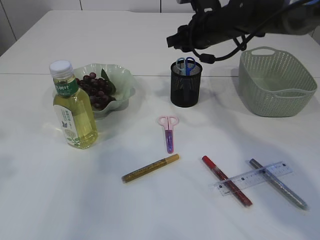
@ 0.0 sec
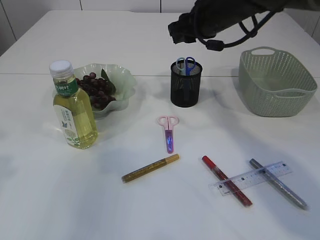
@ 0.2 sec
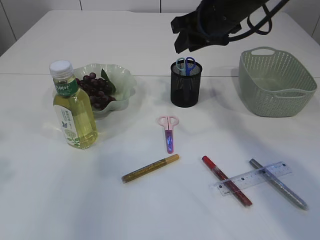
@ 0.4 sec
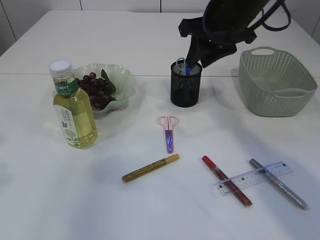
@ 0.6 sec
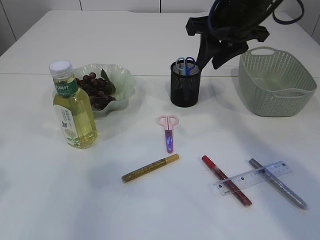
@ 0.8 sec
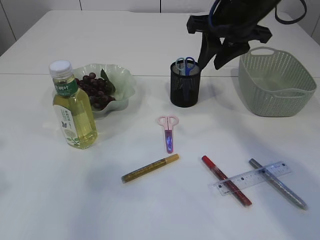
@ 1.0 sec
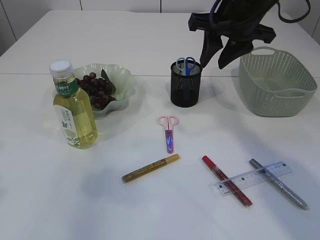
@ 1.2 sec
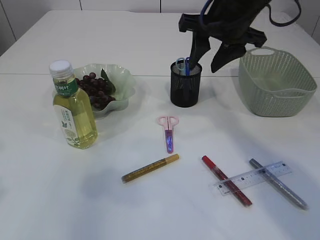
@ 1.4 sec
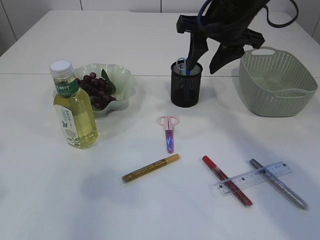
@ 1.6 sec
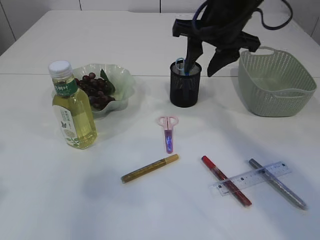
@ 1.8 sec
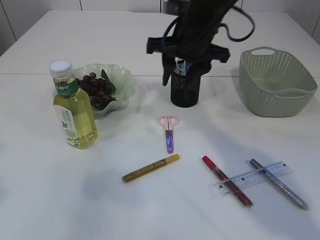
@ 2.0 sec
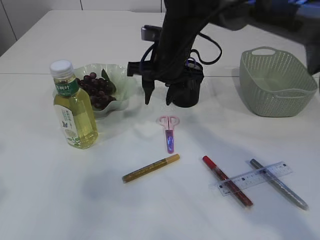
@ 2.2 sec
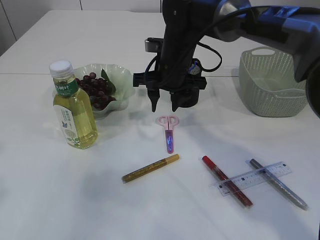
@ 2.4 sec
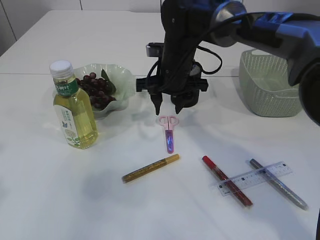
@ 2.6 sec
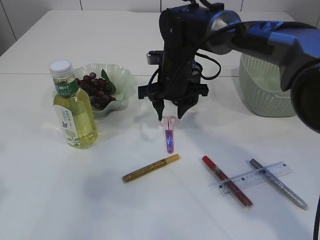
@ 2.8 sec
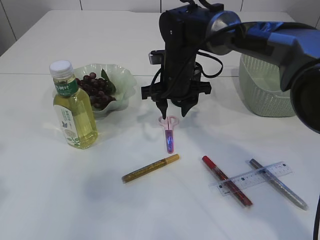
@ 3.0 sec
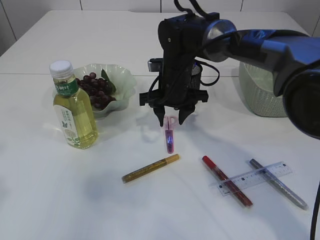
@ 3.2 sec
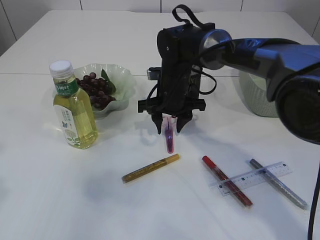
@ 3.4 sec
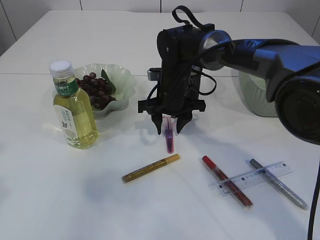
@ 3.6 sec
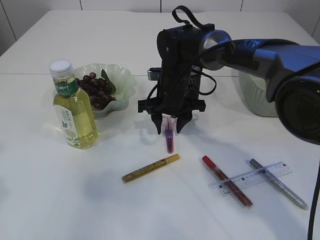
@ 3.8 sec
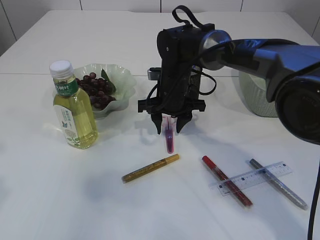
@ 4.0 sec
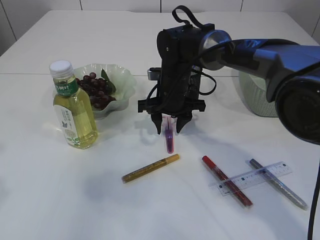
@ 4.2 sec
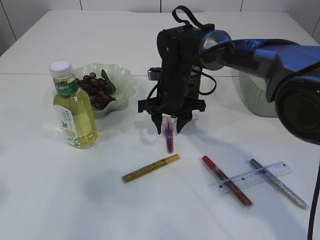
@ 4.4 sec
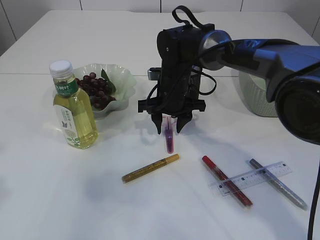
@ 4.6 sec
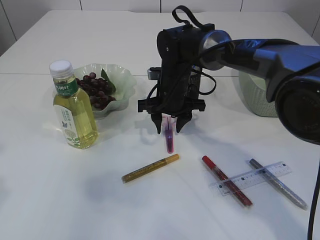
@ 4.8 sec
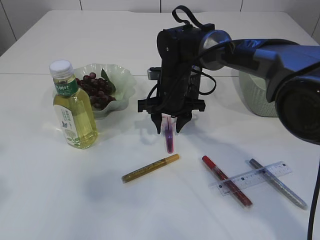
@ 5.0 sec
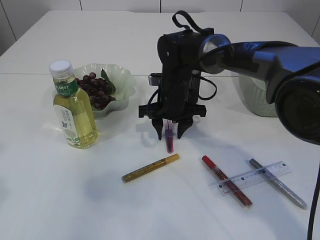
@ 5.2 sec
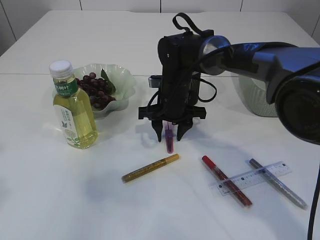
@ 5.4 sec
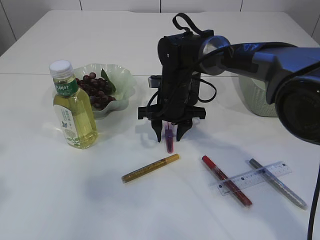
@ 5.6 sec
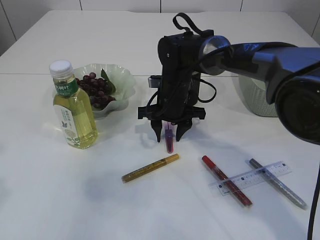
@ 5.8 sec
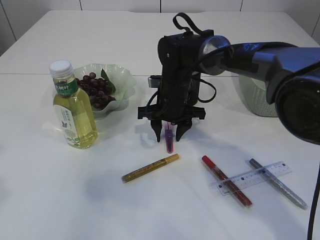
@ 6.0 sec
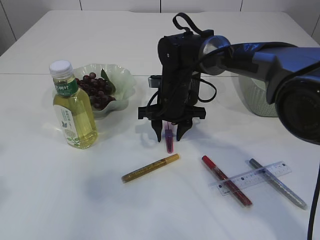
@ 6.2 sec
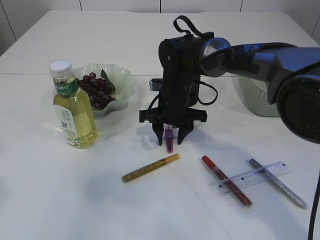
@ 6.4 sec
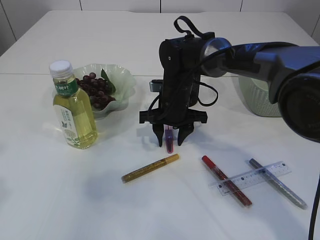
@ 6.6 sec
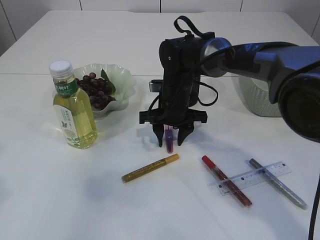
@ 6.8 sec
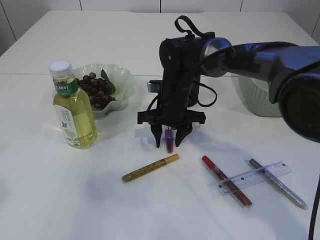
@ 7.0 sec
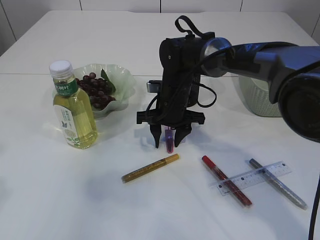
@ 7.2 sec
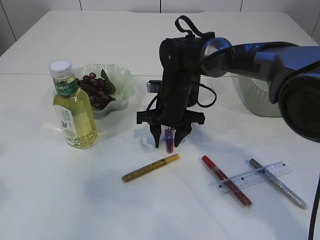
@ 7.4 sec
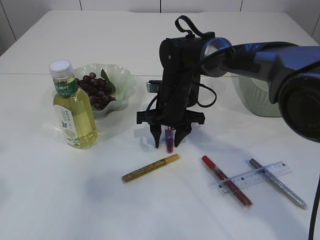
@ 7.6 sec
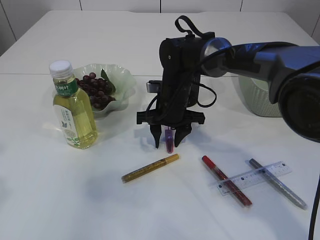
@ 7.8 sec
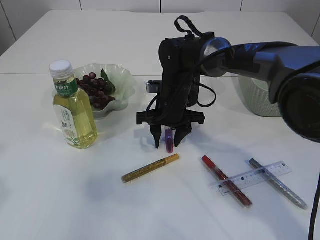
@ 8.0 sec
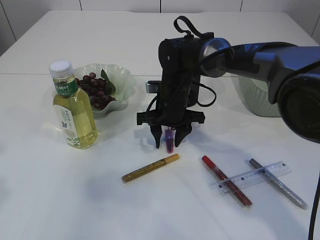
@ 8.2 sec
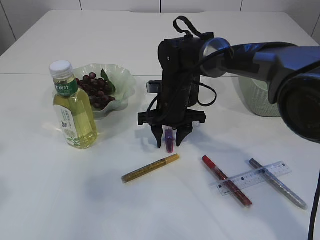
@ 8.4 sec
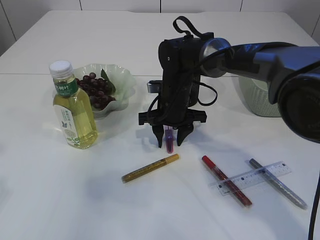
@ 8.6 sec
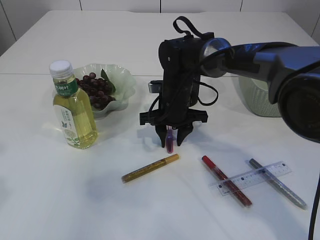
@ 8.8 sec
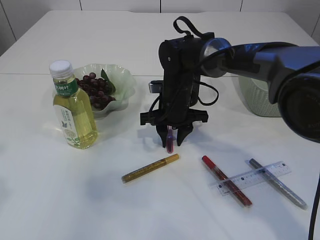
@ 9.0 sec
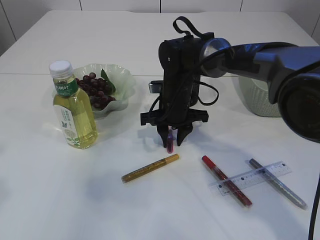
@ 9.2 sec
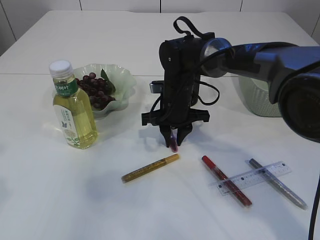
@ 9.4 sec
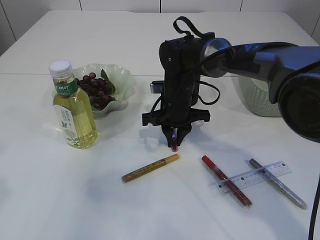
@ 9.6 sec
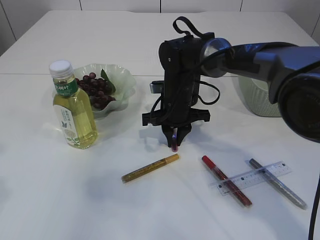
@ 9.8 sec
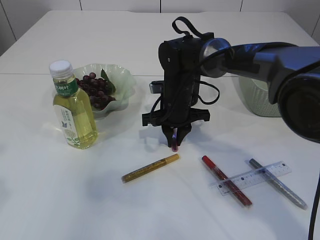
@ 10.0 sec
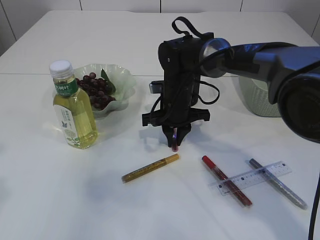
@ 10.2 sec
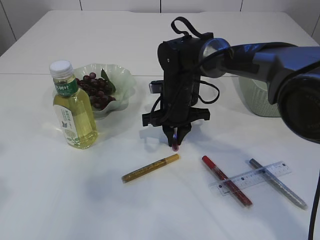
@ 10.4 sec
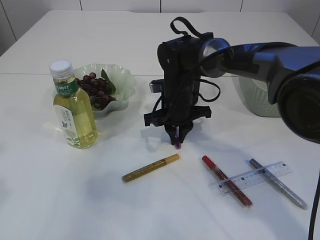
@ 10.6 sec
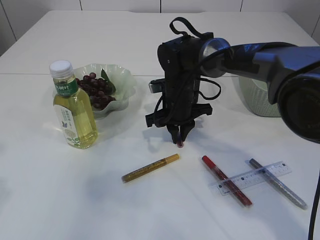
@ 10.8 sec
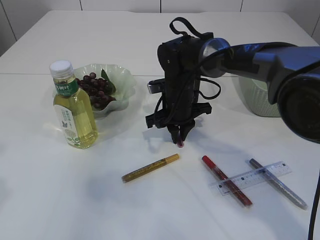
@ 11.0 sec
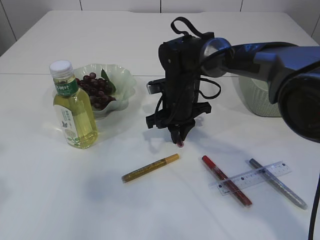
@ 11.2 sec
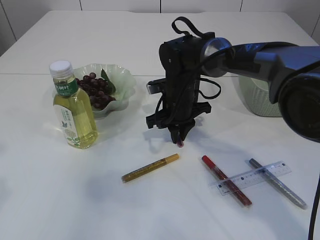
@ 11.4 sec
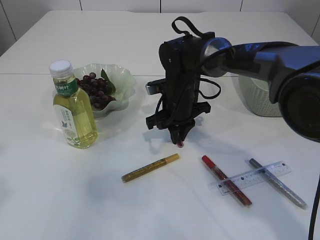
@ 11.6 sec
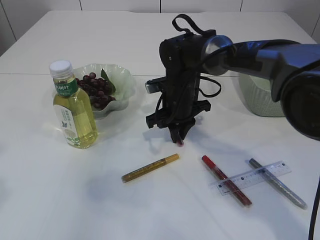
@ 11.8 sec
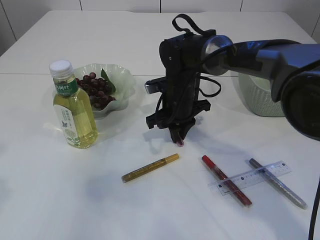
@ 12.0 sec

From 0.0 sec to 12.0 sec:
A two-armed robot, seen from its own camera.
From 0.0 sec to 1.6 sec: The right gripper moves backward and upward, roughly 10 cm.
From 1.6 sec to 3.0 sec: The right gripper moves downward and to the left, about 15 cm.
From 3.0 sec to 4.4 sec: The grippers make only small movements.
From 4.4 sec to 6.0 sec: Both grippers stay about where they are.
From 6.0 sec to 9.0 sec: Neither gripper changes place.
From 9.0 sec to 10.4 sec: The right gripper closes up.
From 10.4 sec to 12.0 sec: The grippers make only small movements.

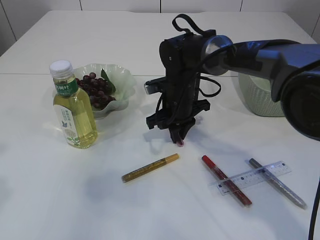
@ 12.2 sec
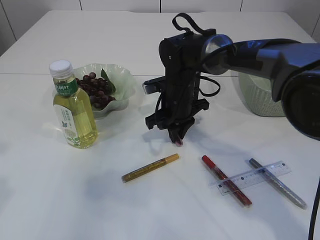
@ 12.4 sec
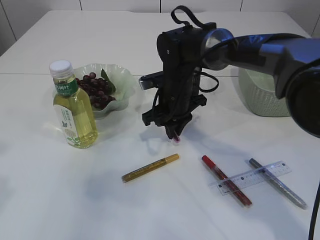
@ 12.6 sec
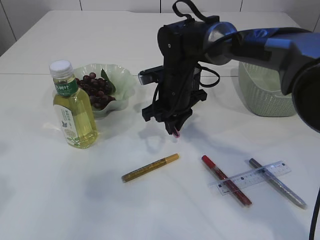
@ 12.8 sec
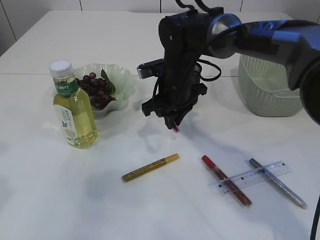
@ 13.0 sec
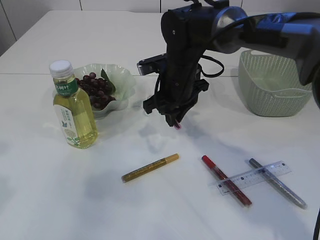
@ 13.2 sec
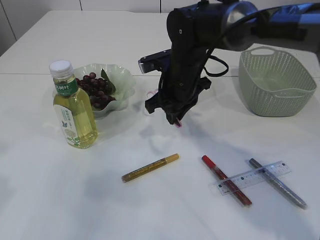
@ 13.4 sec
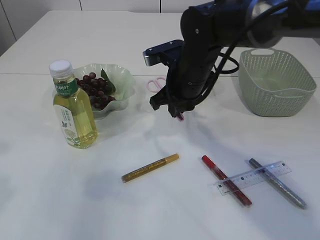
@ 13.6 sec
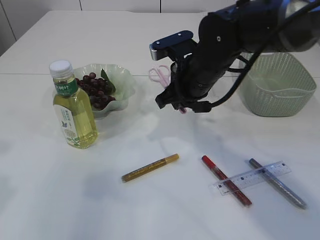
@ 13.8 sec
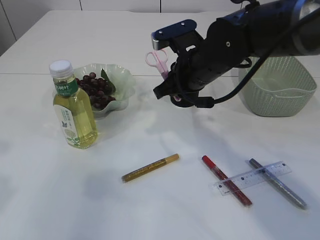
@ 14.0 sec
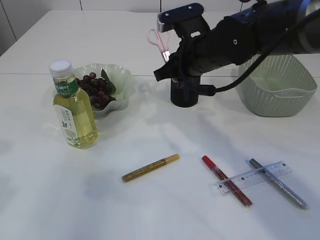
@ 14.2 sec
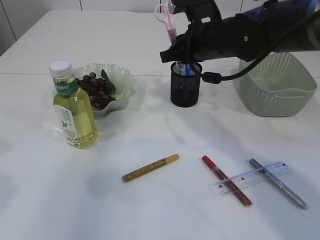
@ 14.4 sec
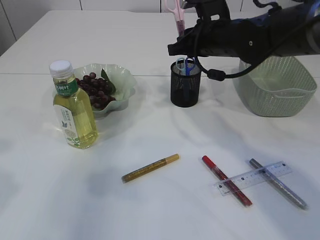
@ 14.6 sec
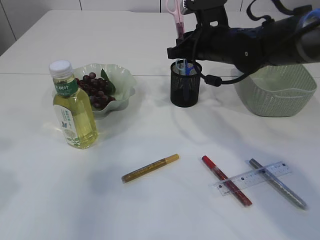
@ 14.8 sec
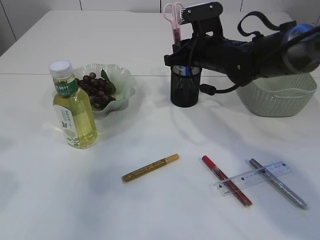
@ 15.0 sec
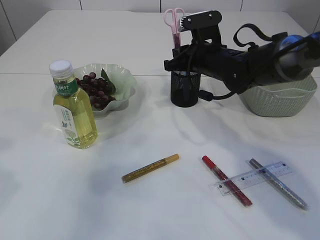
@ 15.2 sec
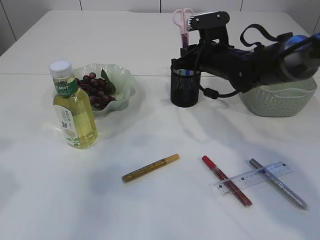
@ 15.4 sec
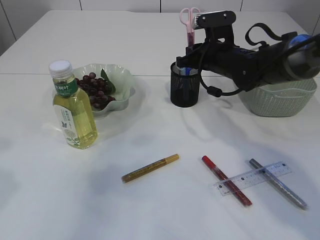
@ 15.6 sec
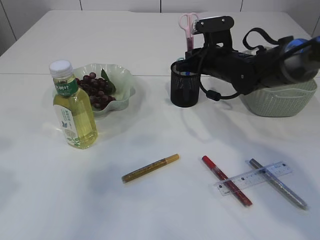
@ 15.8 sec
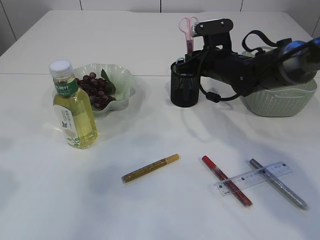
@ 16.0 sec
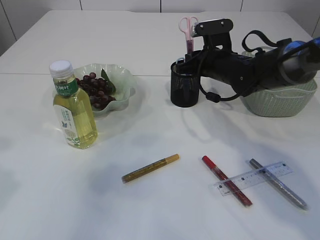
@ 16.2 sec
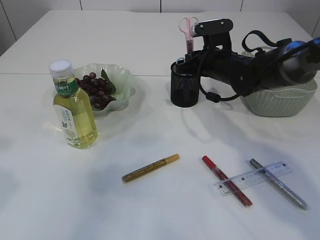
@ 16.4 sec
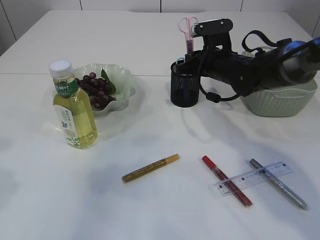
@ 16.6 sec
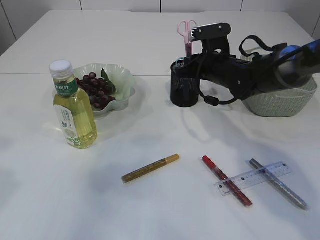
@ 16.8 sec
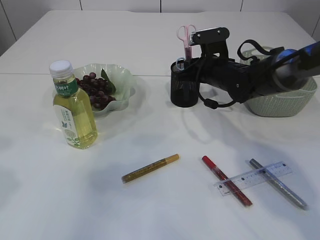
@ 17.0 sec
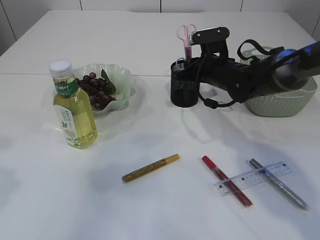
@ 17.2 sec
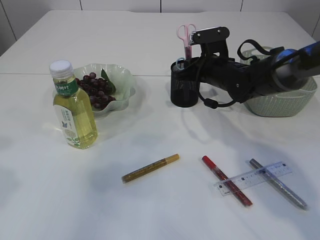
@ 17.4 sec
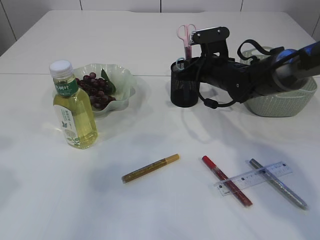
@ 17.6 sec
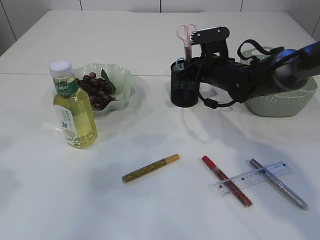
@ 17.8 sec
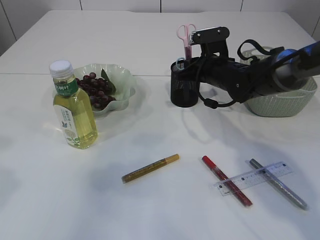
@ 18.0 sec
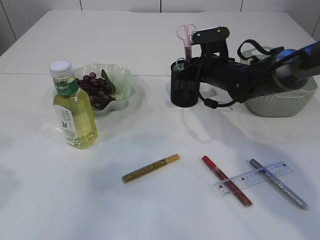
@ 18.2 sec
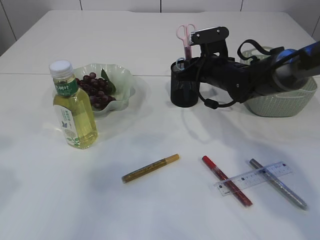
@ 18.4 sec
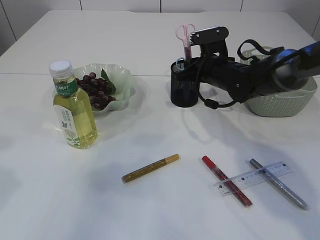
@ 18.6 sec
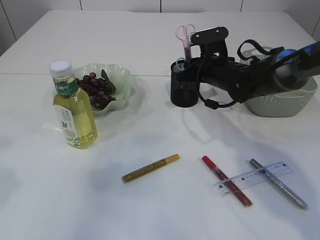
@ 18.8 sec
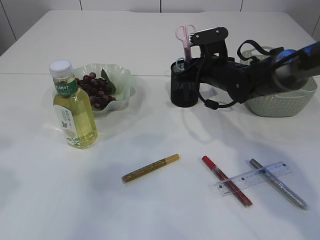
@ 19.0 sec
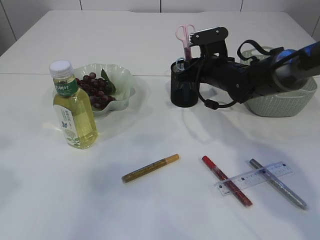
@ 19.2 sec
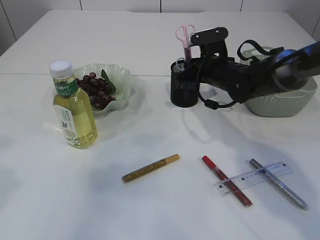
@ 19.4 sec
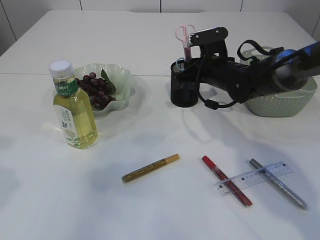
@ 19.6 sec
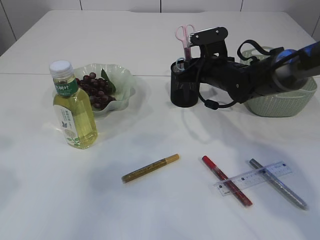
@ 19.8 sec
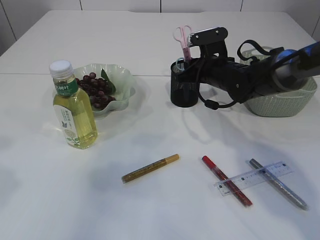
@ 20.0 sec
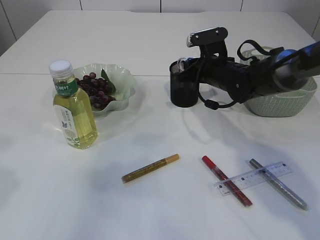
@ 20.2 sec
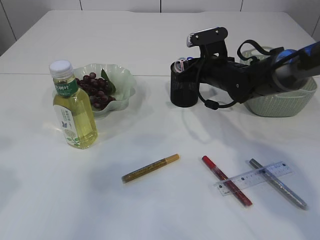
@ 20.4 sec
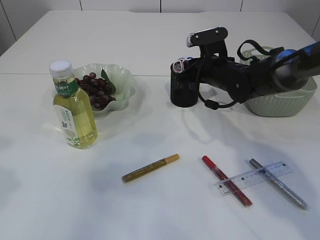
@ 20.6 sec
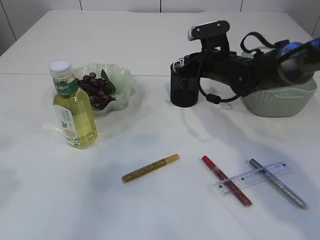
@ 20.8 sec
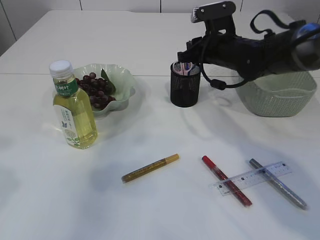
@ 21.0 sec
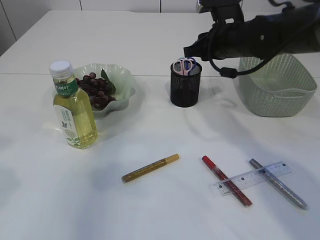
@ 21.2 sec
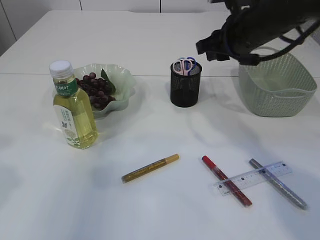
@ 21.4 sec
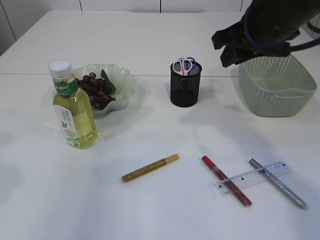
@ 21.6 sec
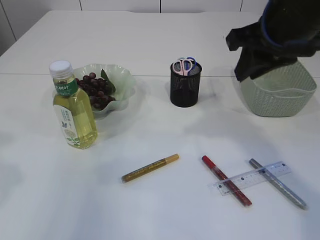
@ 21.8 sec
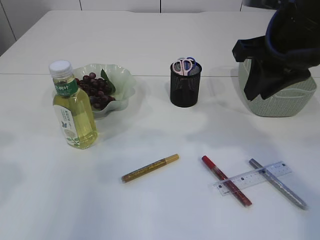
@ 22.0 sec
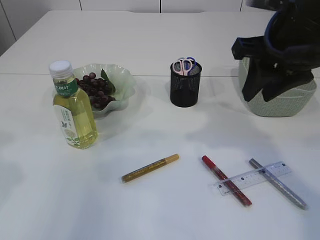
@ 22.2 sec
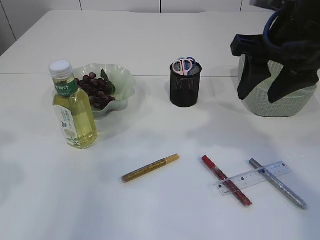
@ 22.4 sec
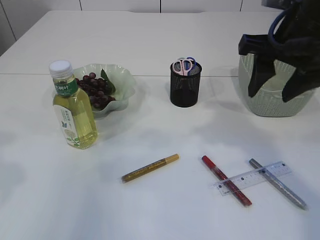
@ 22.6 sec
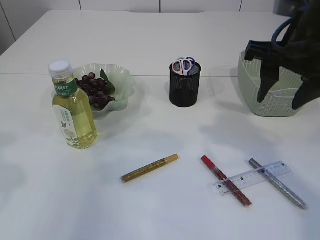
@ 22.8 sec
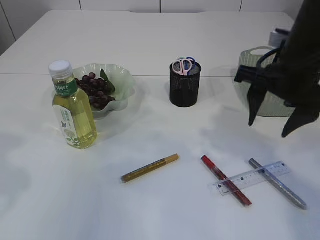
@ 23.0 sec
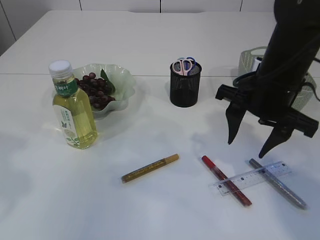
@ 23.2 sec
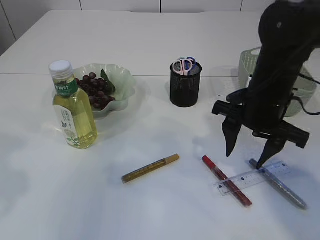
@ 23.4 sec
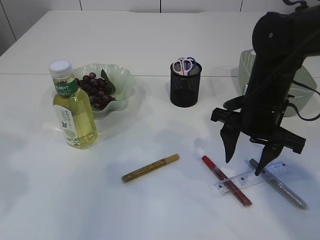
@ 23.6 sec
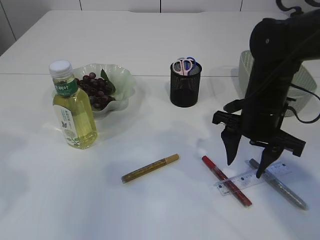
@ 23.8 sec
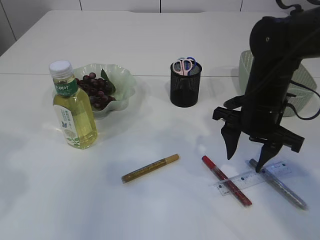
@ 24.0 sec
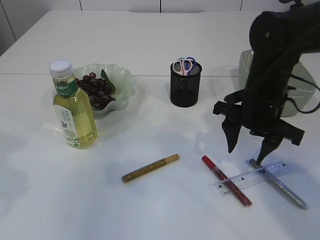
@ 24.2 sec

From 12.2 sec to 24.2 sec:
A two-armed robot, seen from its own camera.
Step, from 13.8 sec to 21.6 sec: Place the pink scissors into the pen holder.
From 12.2 sec to 13.8 sec: The right gripper is displaced upward and backward by approximately 10 cm.
From 13.8 sec to 15.2 sec: The right gripper heads forward, covering some 10 cm.
From 15.2 sec to 18.2 sec: There are only small adjustments of the grippers.
From 18.2 sec to 19.8 sec: Neither gripper changes place.
From 19.8 sec to 21.2 sec: The right gripper is displaced upward by about 10 cm.
From 21.2 sec to 22.6 sec: The right gripper moves backward and upward, roughly 15 cm, and opens its fingers.
From 22.6 sec to 24.2 sec: The right gripper heads downward, covering roughly 15 cm.
